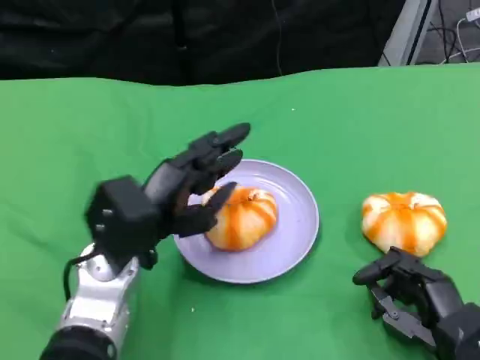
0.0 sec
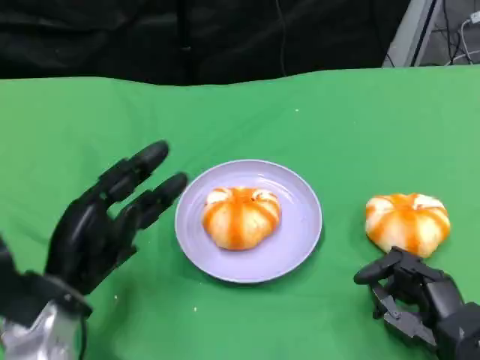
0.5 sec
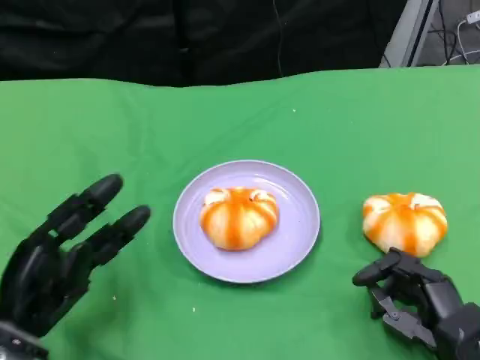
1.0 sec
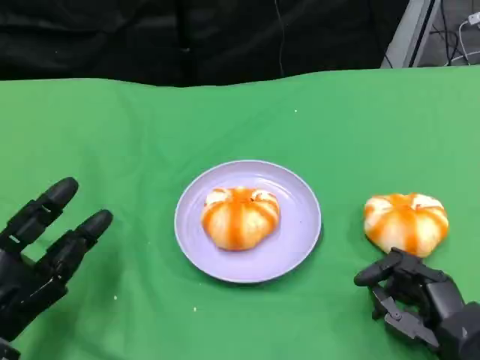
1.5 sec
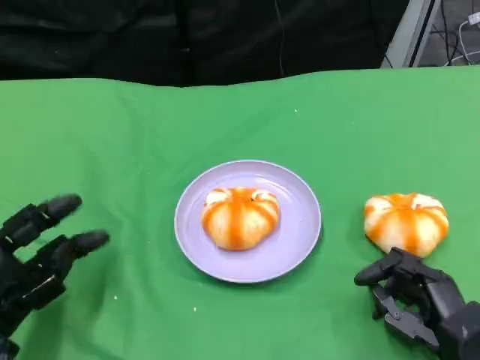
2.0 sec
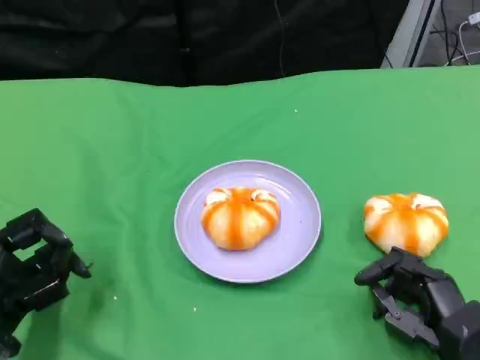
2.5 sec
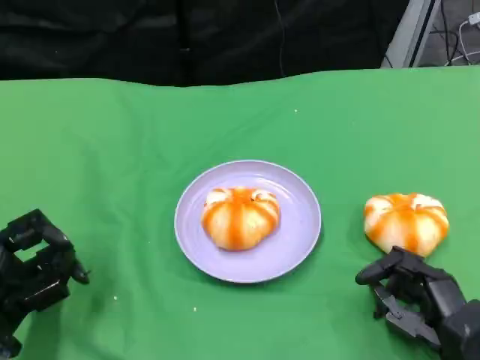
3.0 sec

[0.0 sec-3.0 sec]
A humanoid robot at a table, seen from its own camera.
Task of the whole recording: Grasp the bread from the table and place it into the plate.
0.0 sec to 1.5 sec: The left hand is displaced to the left, backward and downward by roughly 15 cm.
1.5 sec to 3.0 sec: The hands stay close to where they were, moving slightly.

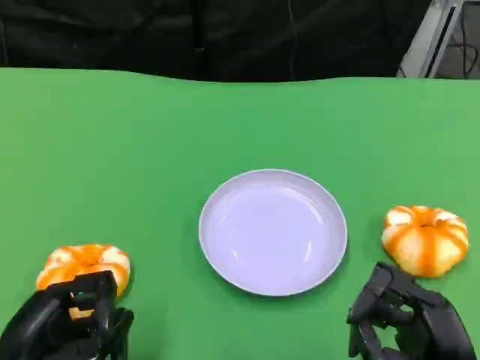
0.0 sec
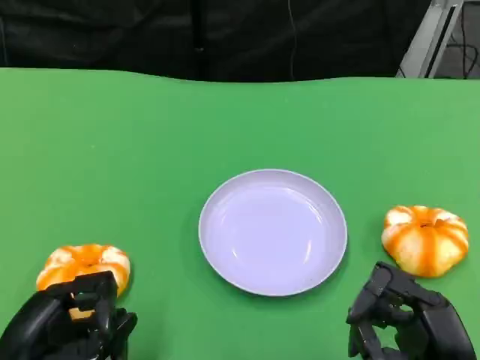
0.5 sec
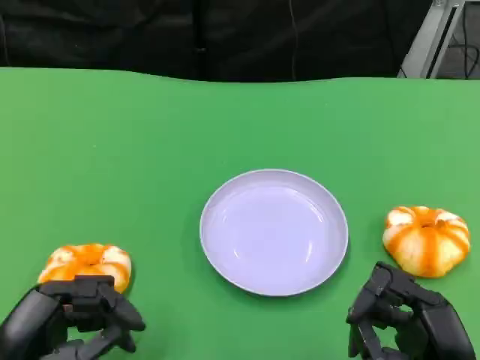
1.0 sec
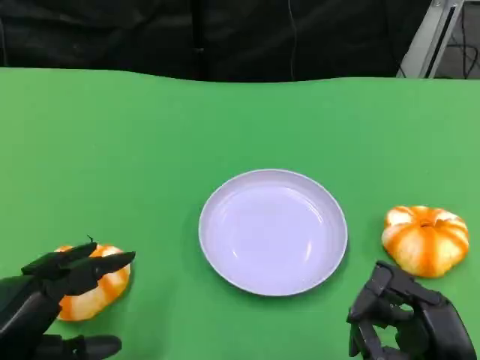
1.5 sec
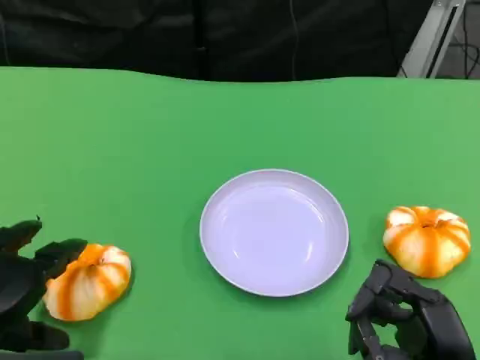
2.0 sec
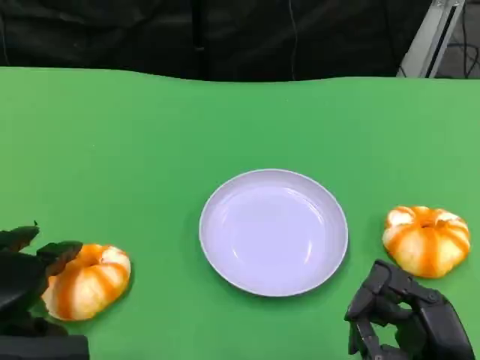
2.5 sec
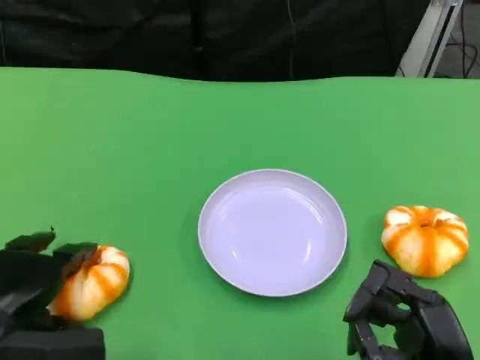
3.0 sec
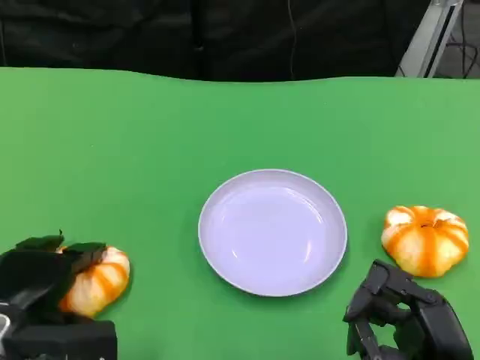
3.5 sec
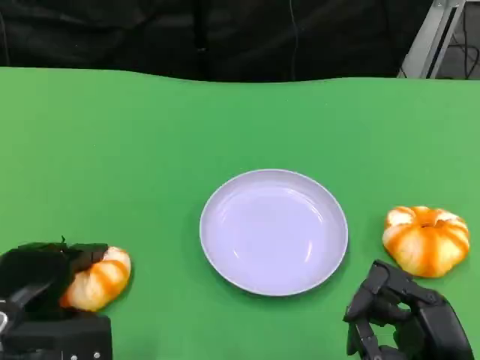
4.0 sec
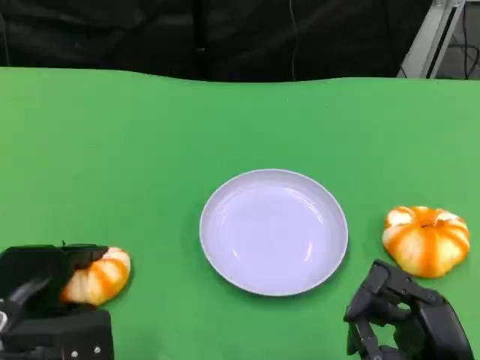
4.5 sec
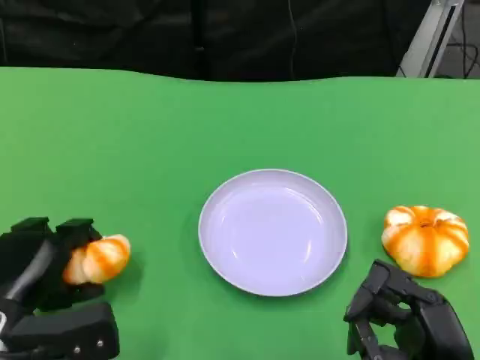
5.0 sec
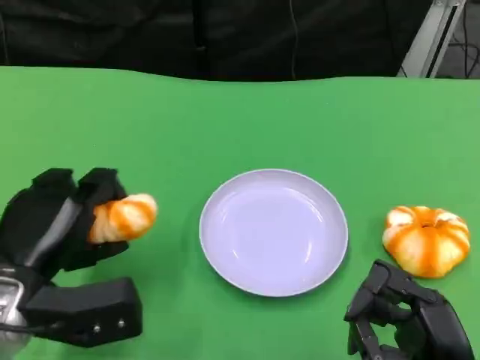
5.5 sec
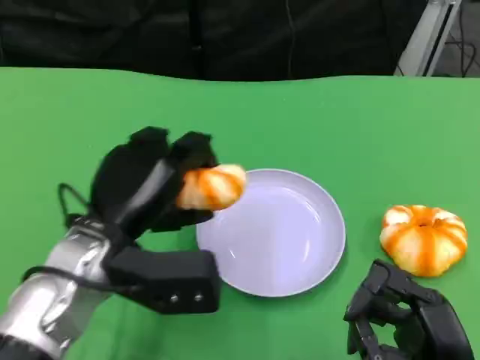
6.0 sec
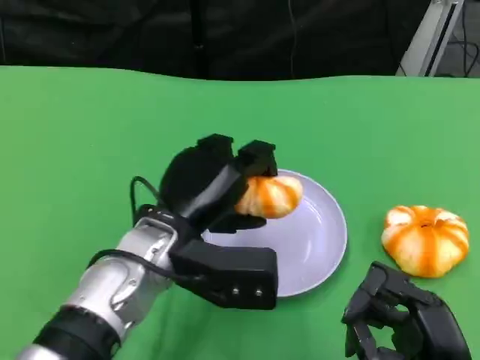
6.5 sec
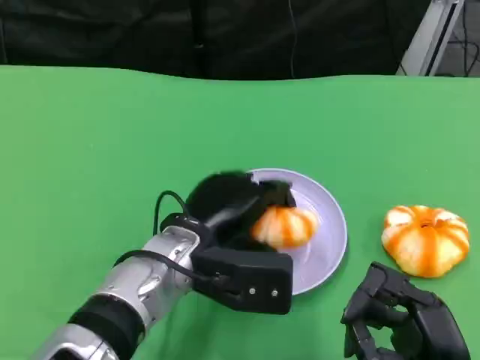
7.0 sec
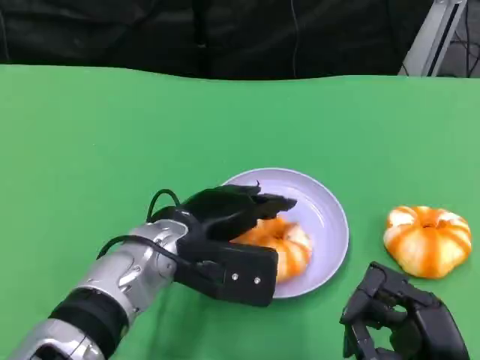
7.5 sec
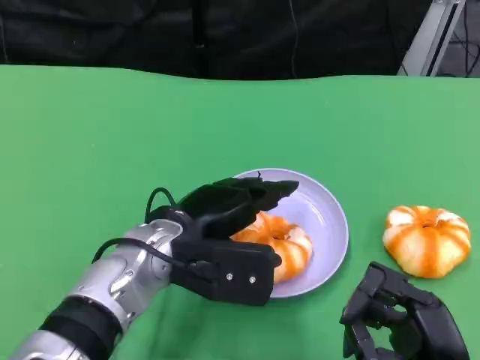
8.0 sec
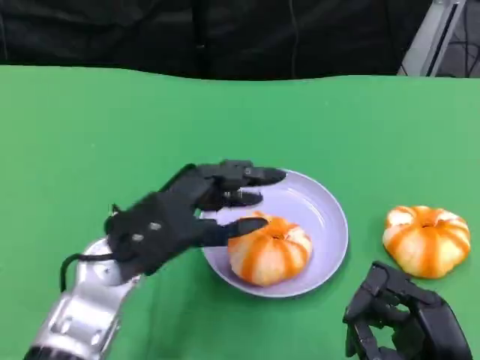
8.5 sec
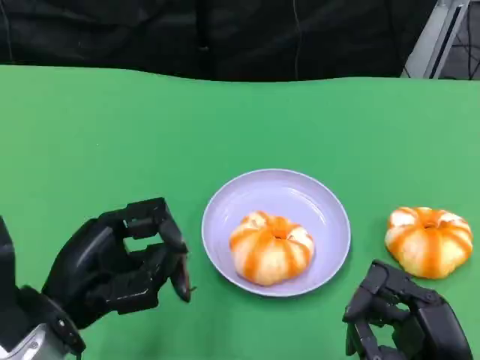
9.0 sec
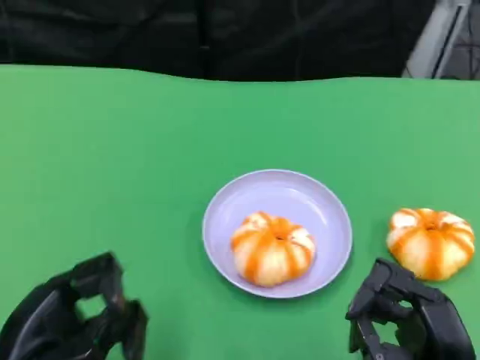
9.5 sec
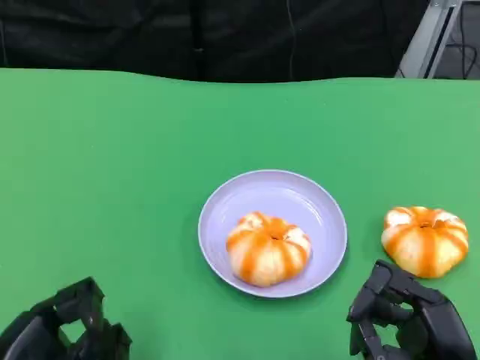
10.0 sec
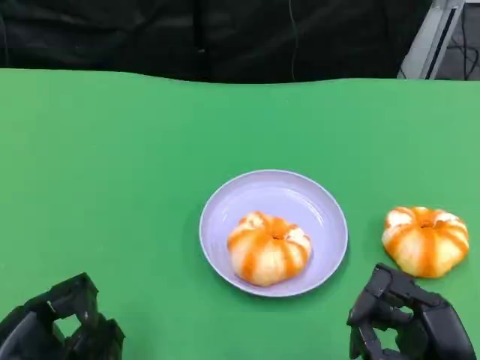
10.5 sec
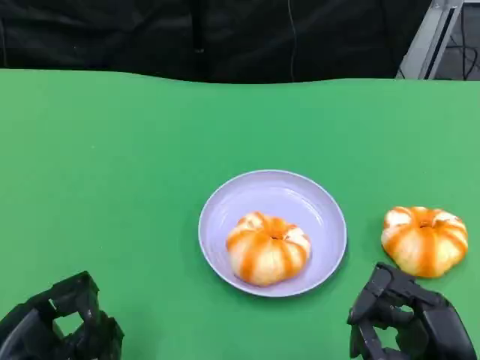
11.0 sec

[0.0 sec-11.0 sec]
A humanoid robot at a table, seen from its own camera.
Task of the whole recording: Grasp the bread from the table and place it into the plate.
2.0 sec to 3.5 sec: The left hand changes place by about 5 cm.
3.5 sec to 5.5 sec: The left hand changes place by approximately 5 cm.
5.5 sec to 7.5 sec: The left hand travels to the right by some 15 cm.
7.5 sec to 9.0 sec: The left hand travels to the left and backward by roughly 15 cm.
9.0 sec to 11.0 sec: The left hand moves backward, to the left and downward, about 10 cm.

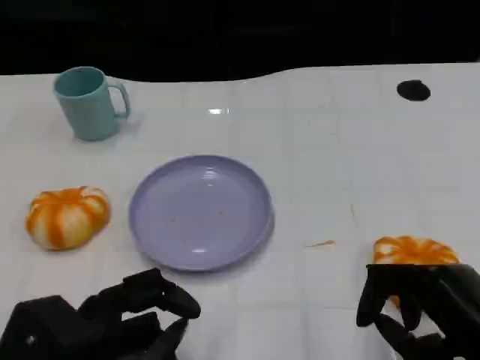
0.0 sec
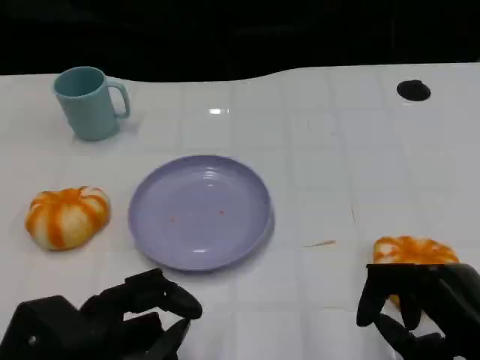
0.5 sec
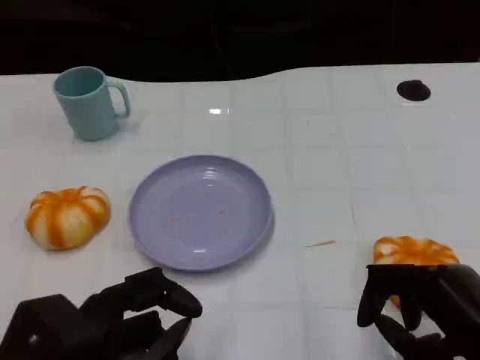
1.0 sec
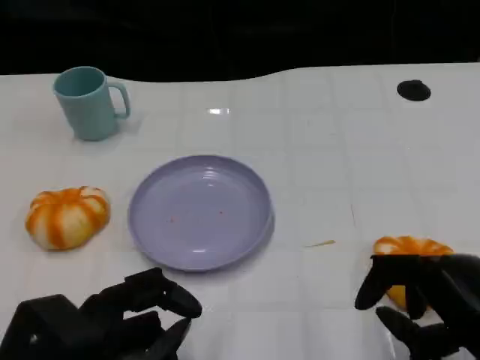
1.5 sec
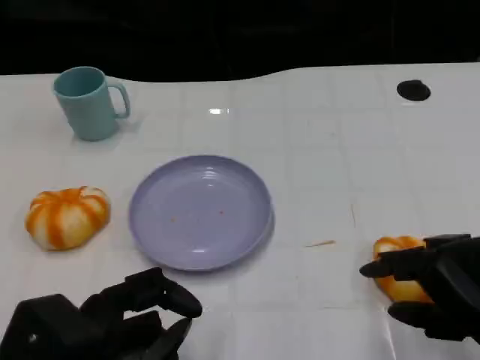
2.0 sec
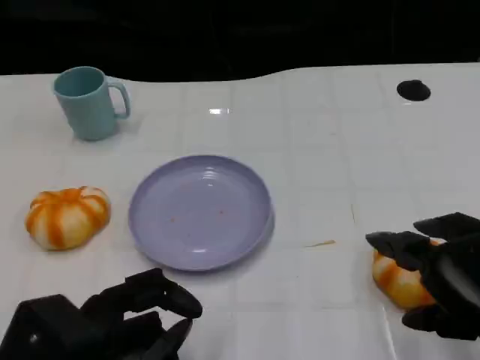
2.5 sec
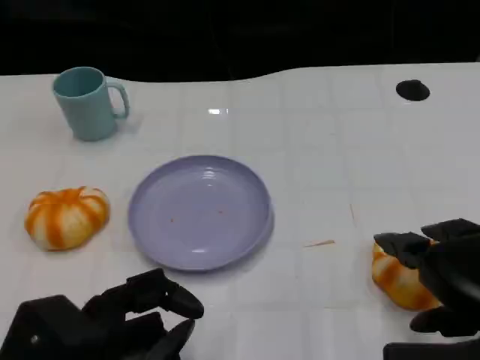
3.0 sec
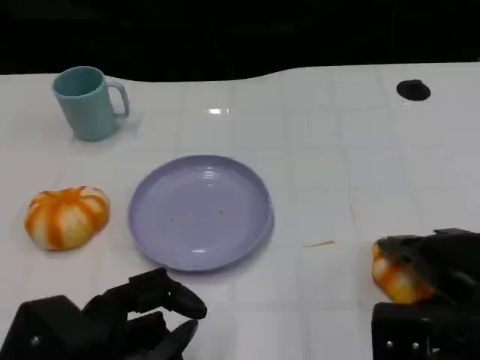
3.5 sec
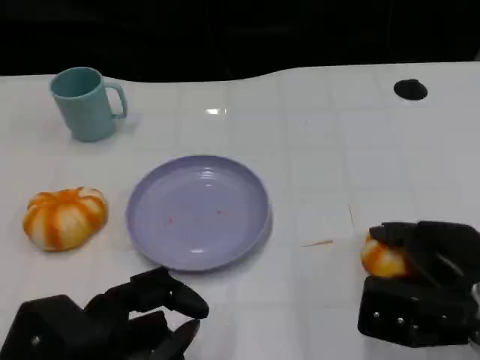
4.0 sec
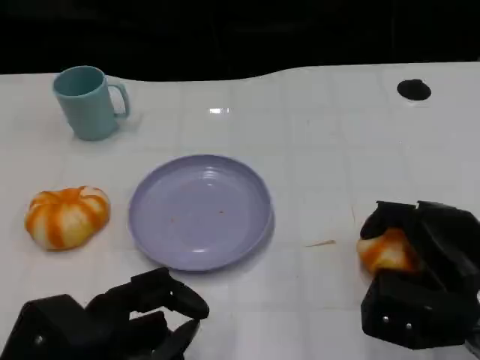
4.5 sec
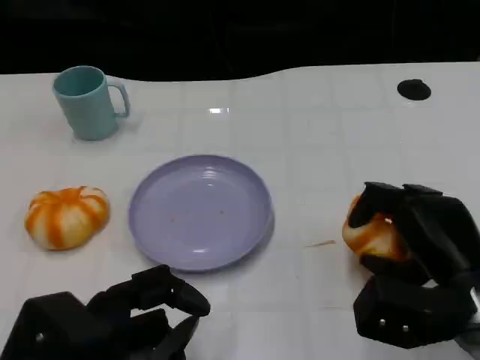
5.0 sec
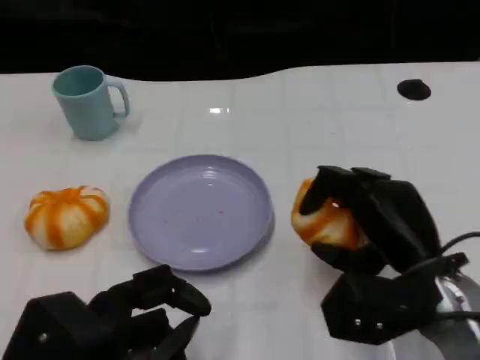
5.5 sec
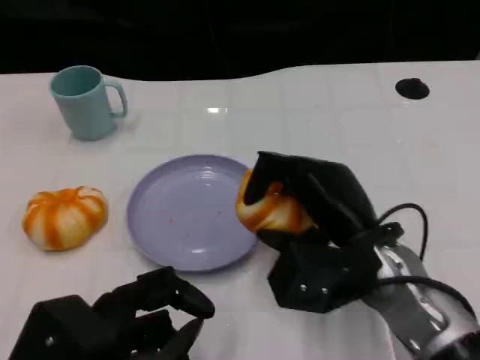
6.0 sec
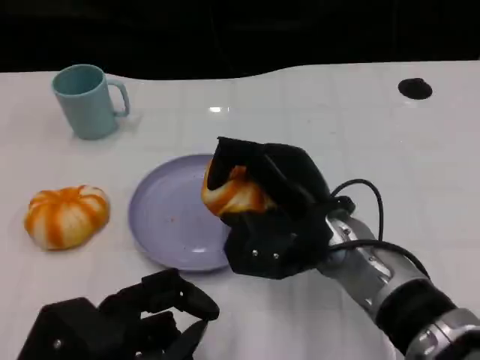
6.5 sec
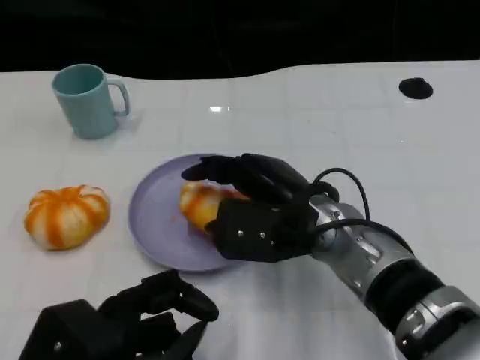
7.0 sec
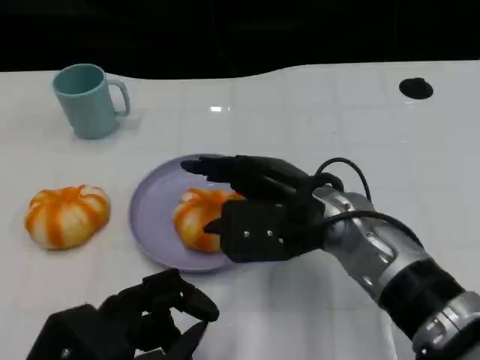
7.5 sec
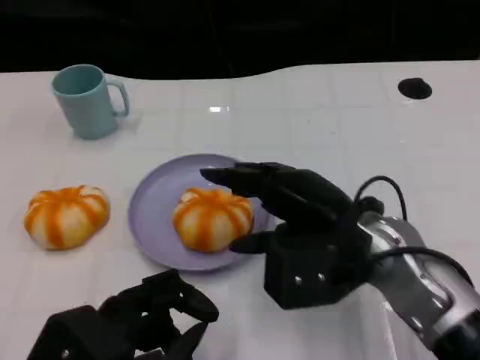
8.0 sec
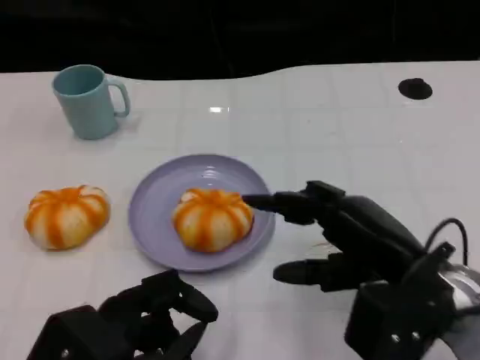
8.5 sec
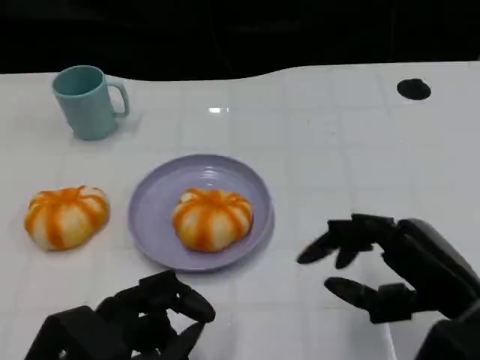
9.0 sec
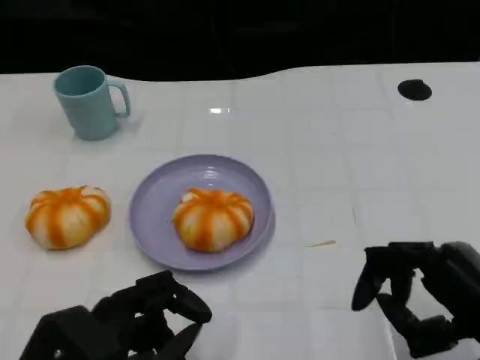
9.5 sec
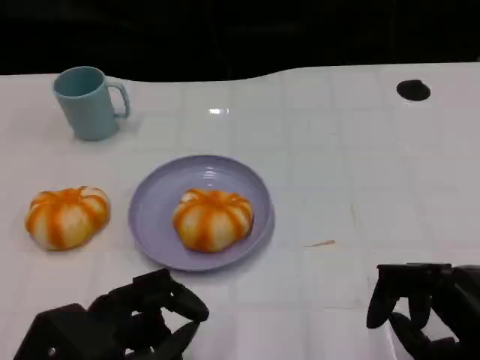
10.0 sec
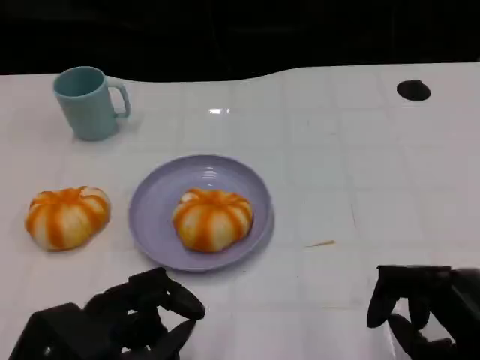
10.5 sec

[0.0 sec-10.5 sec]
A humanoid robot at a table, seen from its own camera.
Task of the whole recording: Grasp the bread from the table and place it into the plate.
2.0 sec to 4.0 sec: The right hand goes approximately 10 cm forward and downward.
4.0 sec to 6.5 sec: The right hand heads to the left, covering approximately 15 cm.
6.5 sec to 8.5 sec: The right hand travels to the right and backward by about 15 cm.
8.5 sec to 10.5 sec: The right hand is displaced backward and to the right by approximately 10 cm.

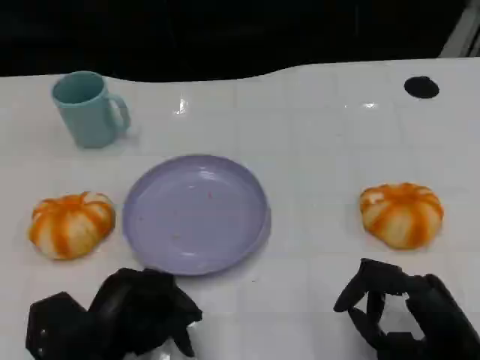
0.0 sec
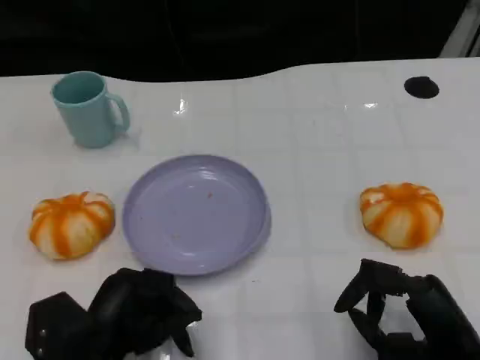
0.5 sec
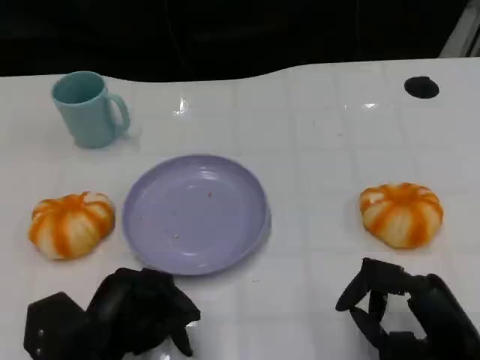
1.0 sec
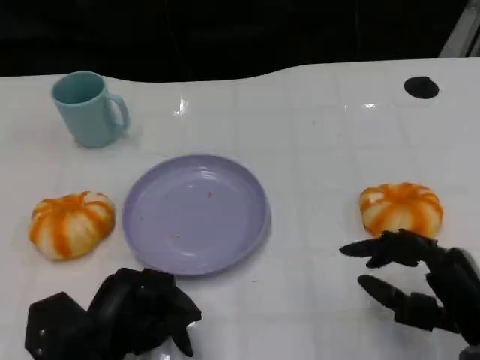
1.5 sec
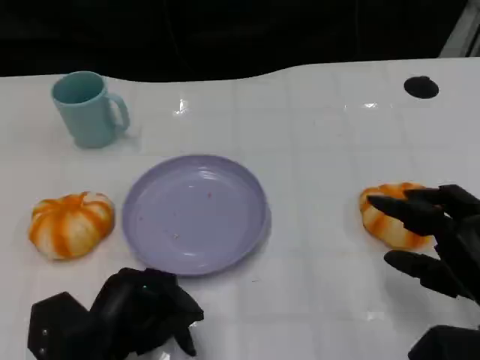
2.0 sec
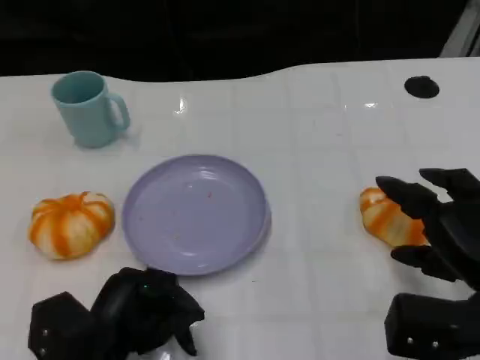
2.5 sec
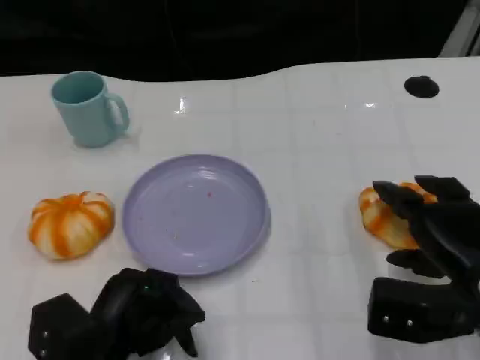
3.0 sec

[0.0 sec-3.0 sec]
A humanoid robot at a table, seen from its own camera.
Task of the whole recording: Grasp the bread from the table and place it into the plate.
0.0 sec to 1.5 sec: The hands stay close to where they were, moving slightly.
1.5 sec to 3.0 sec: The right hand goes approximately 5 cm forward.
